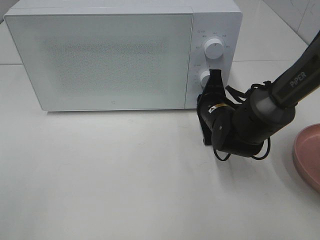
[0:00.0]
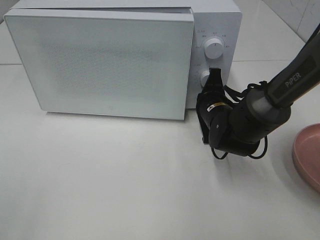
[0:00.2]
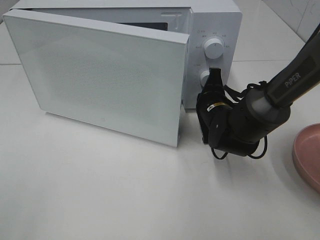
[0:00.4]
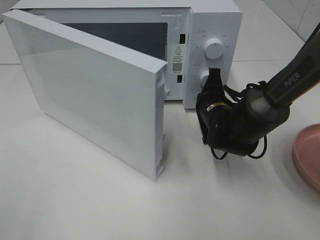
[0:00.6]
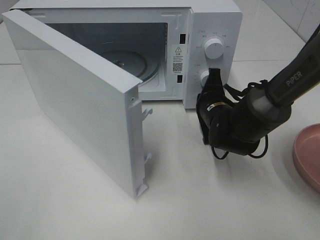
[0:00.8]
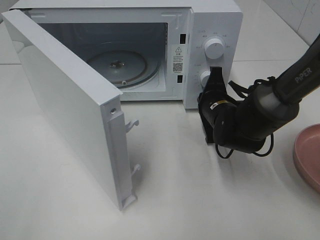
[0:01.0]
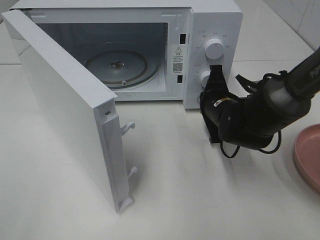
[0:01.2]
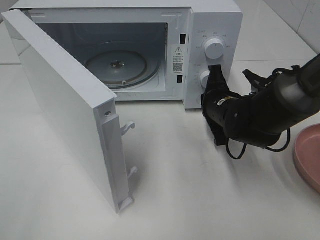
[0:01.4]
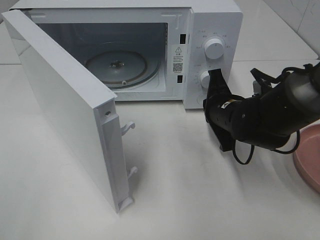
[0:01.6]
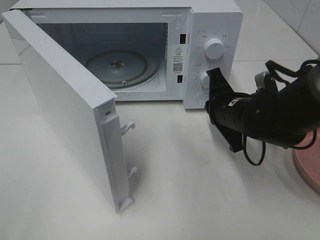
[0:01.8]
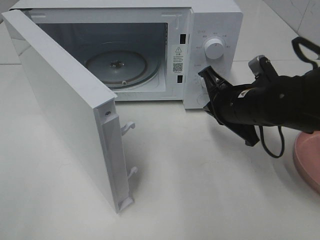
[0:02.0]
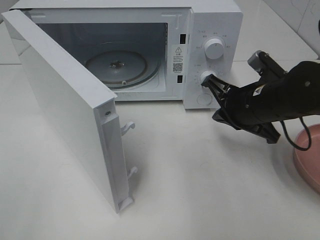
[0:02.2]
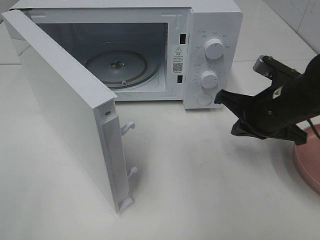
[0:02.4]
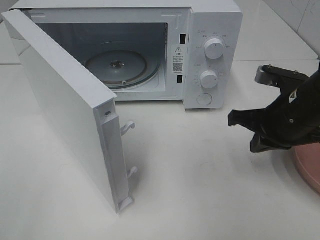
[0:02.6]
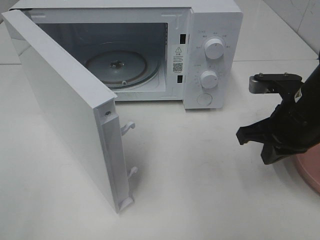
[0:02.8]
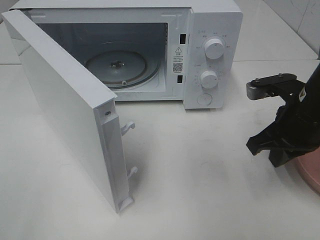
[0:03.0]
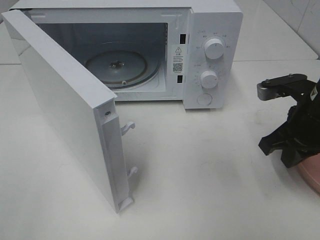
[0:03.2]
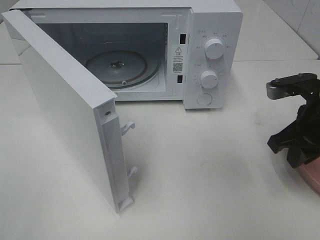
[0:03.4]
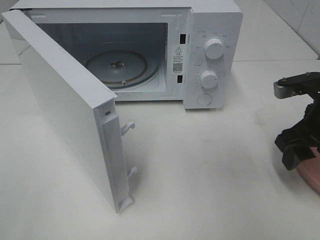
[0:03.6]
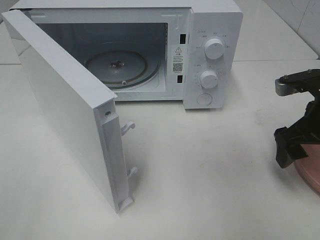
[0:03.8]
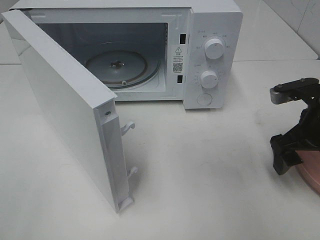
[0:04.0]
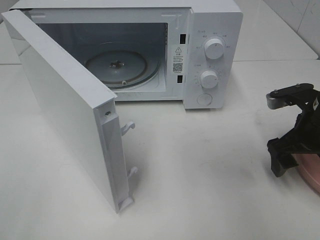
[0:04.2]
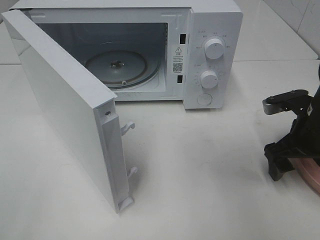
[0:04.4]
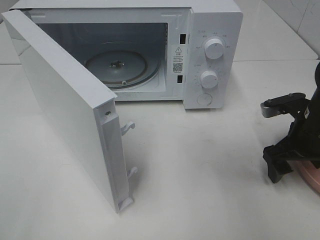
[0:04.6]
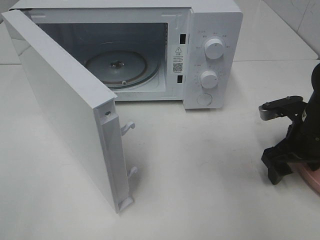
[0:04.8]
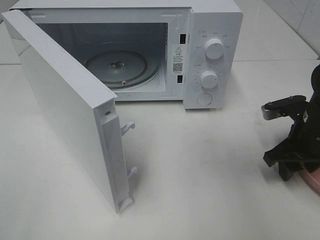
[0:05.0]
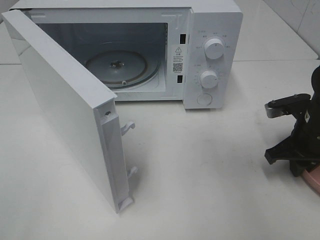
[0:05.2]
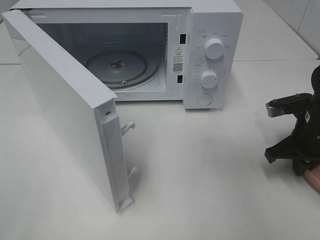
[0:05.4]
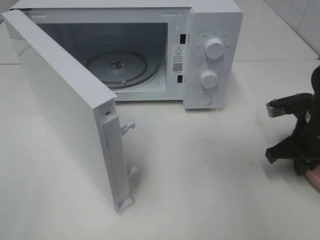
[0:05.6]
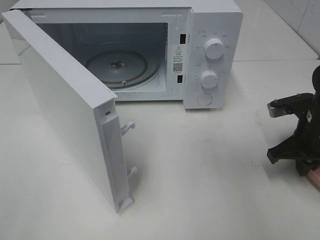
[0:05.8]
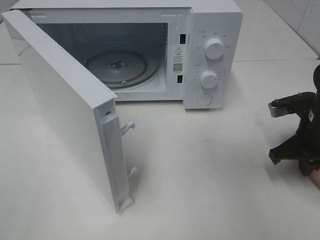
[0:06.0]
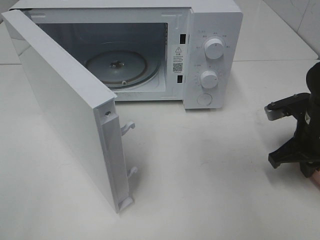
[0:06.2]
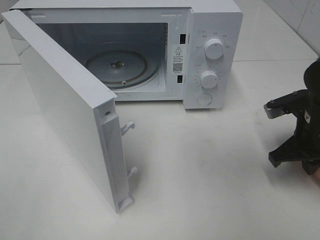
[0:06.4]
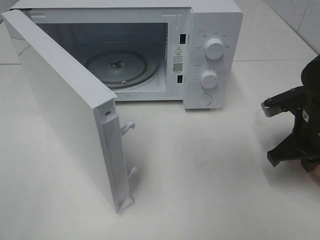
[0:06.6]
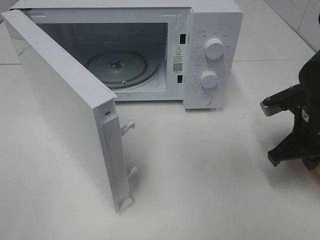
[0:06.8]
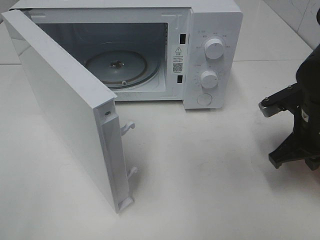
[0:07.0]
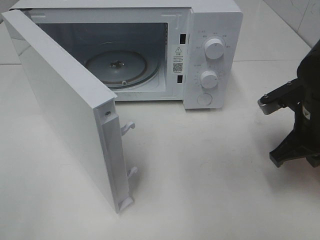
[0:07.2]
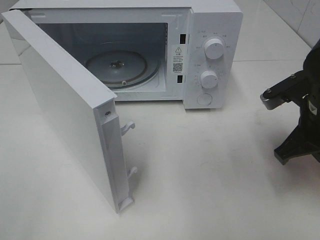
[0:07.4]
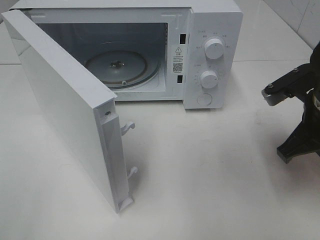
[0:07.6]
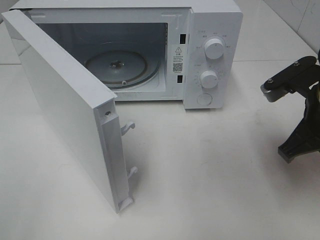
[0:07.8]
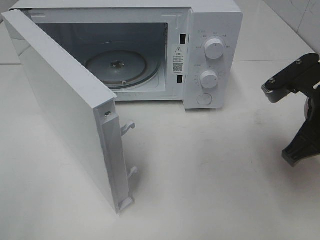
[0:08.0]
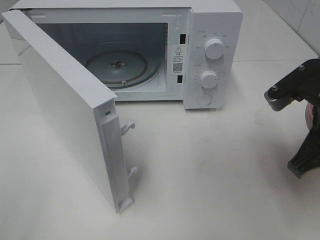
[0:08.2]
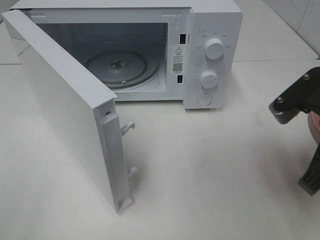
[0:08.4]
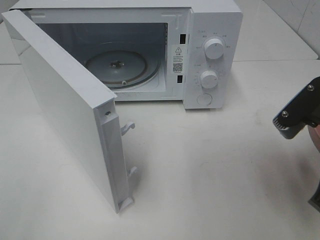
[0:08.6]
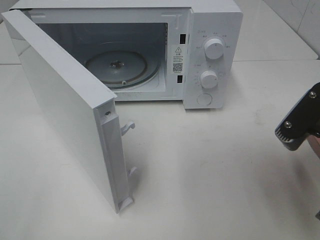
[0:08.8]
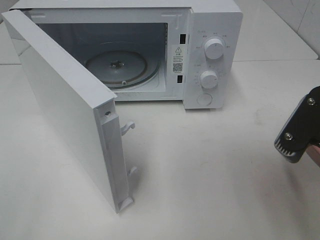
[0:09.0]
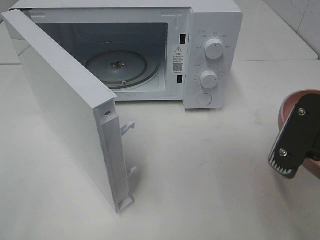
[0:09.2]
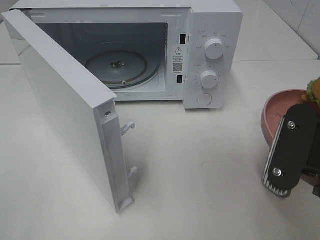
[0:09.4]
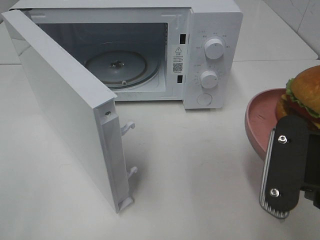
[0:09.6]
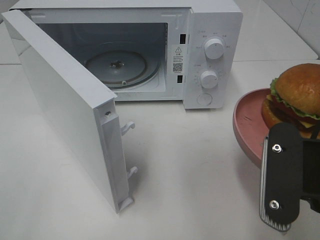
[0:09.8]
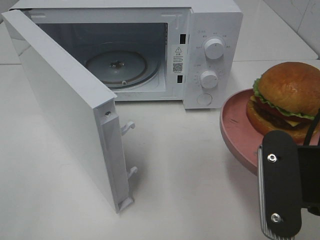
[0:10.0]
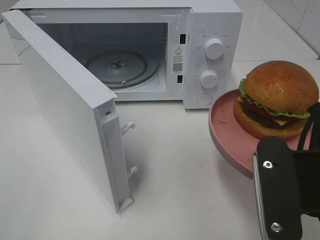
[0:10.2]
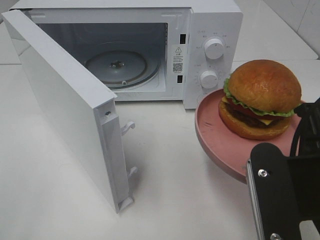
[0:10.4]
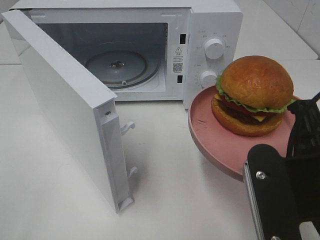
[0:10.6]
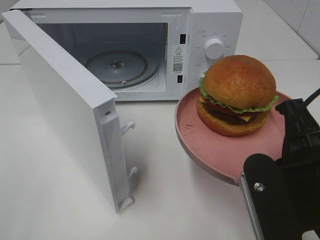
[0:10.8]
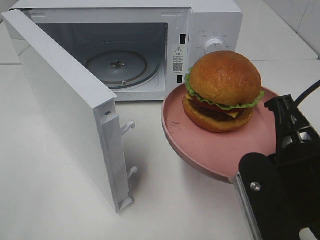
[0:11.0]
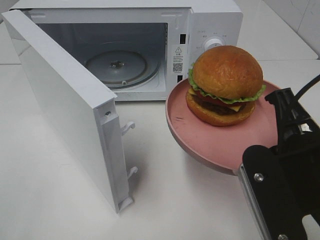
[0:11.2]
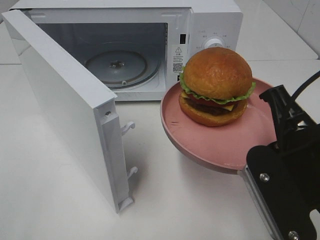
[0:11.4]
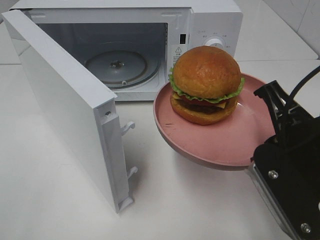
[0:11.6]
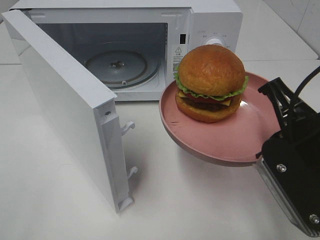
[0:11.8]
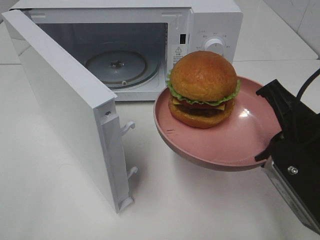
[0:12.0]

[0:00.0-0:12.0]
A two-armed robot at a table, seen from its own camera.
Task of the whole recording: Heat the burger.
Step, 0:01.8 to 0:06.2: Right hand: grab the plate with the hamburger.
0:01.6 to 0:03.0: The right gripper shifts about 10 cm upward, to the right and backward.
0:03.0 to 0:04.4: The right gripper changes place by approximately 5 cm, and opens its fingers.
0:04.4 to 0:06.0: The right gripper closes up.
0:06.0 to 0:07.6: The right gripper heads upward, covering some 5 cm.
0:07.6 to 0:09.0: The right gripper is displaced backward by about 10 cm.
0:09.0 to 0:10.4: The right gripper changes place by some 5 cm.
0:10.4 to 0:12.0: The right gripper shifts roughly 5 cm forward.

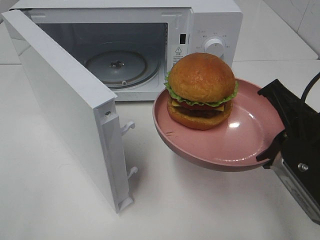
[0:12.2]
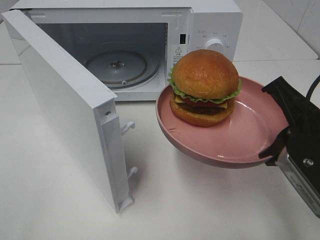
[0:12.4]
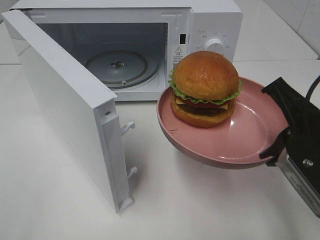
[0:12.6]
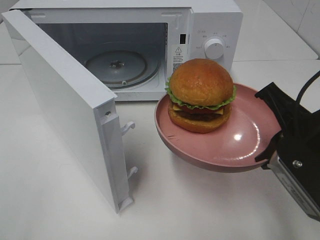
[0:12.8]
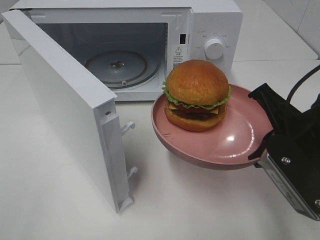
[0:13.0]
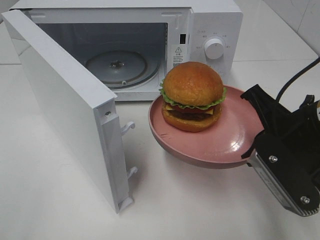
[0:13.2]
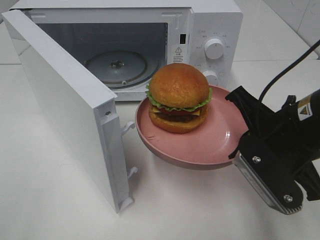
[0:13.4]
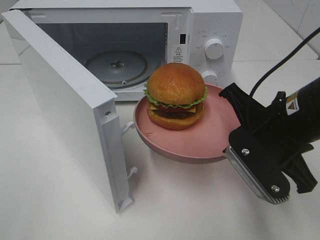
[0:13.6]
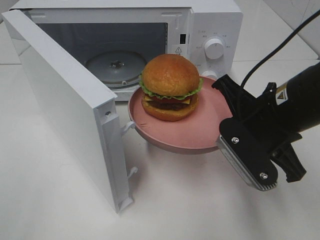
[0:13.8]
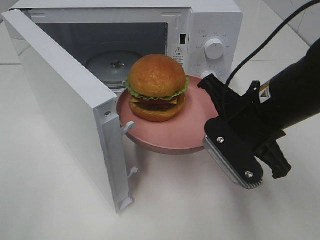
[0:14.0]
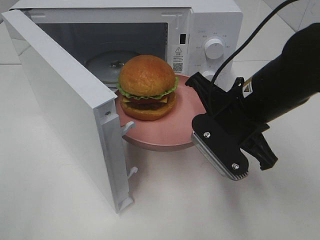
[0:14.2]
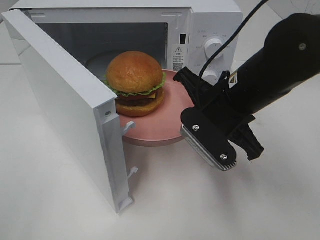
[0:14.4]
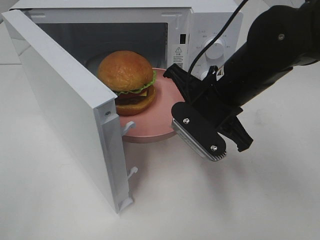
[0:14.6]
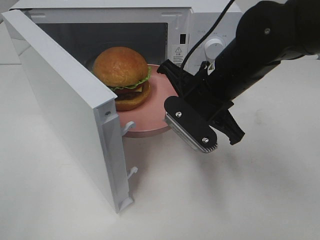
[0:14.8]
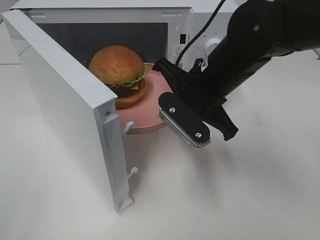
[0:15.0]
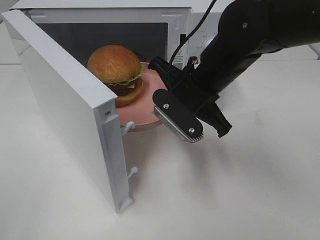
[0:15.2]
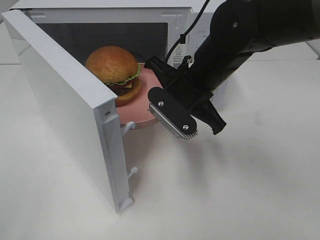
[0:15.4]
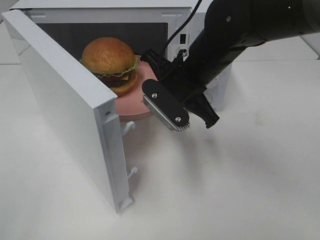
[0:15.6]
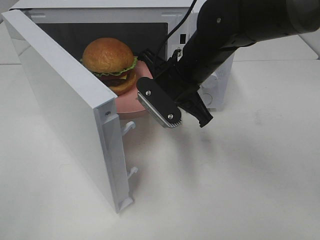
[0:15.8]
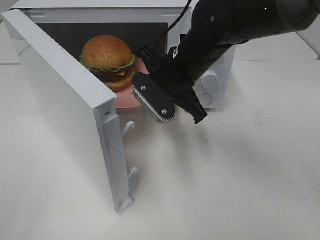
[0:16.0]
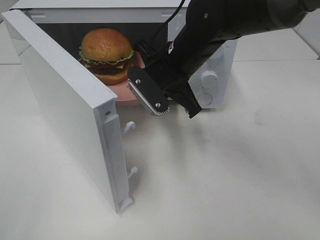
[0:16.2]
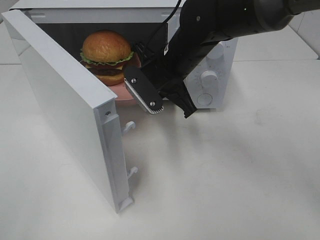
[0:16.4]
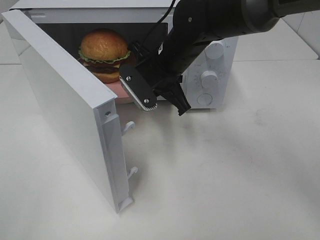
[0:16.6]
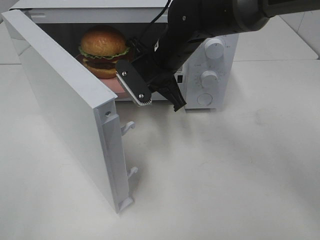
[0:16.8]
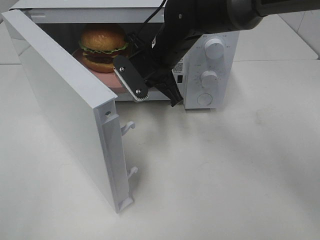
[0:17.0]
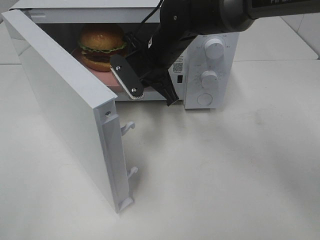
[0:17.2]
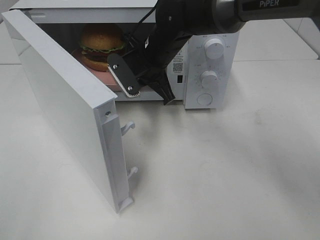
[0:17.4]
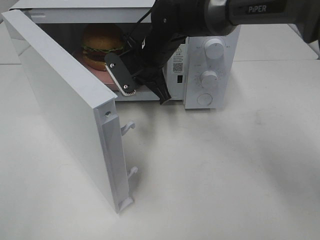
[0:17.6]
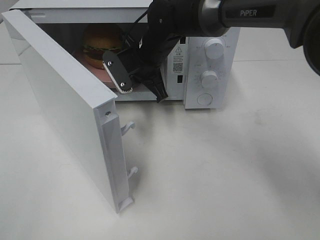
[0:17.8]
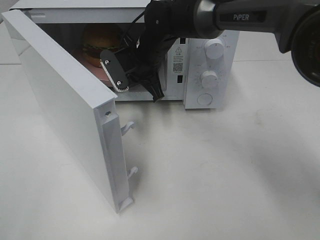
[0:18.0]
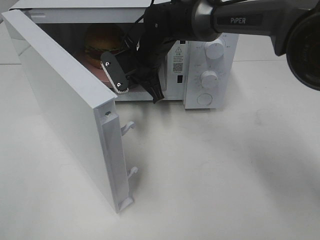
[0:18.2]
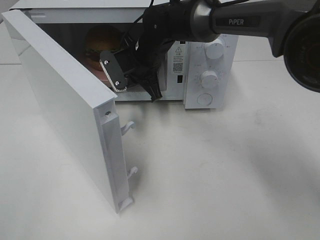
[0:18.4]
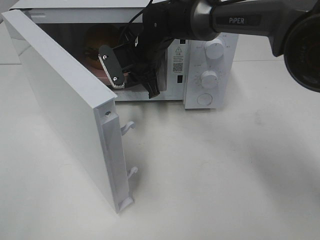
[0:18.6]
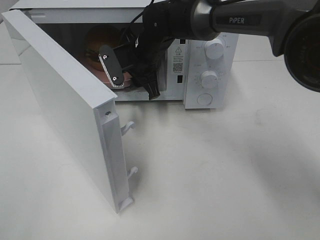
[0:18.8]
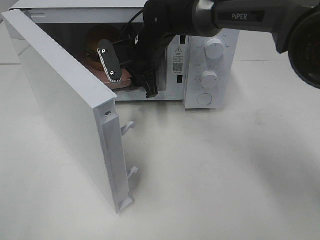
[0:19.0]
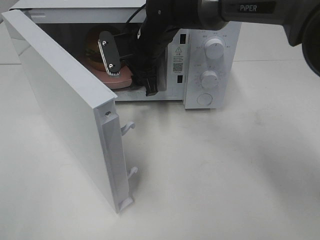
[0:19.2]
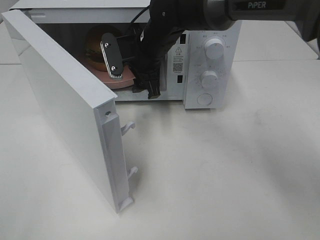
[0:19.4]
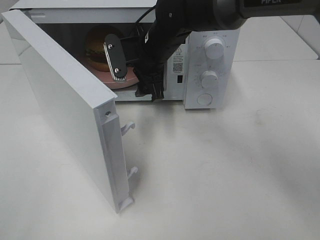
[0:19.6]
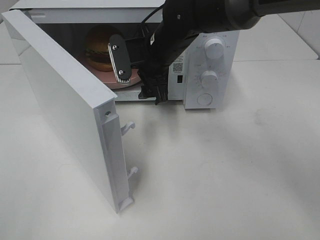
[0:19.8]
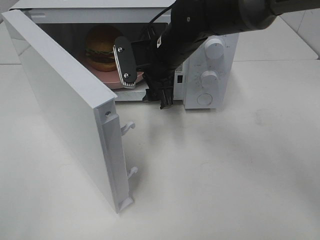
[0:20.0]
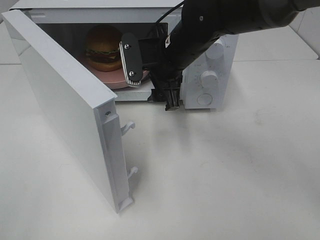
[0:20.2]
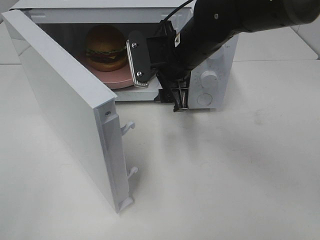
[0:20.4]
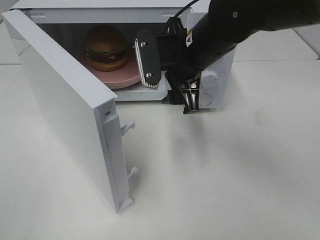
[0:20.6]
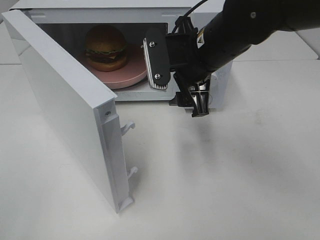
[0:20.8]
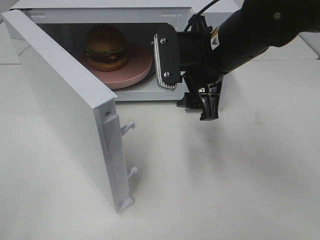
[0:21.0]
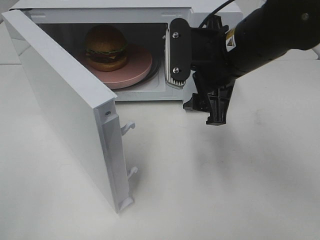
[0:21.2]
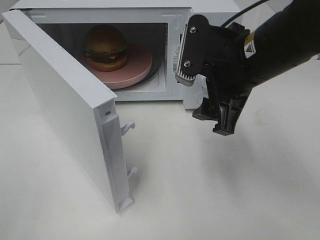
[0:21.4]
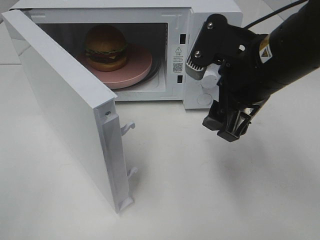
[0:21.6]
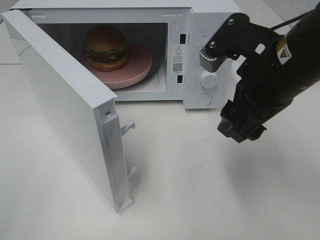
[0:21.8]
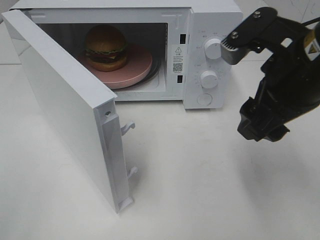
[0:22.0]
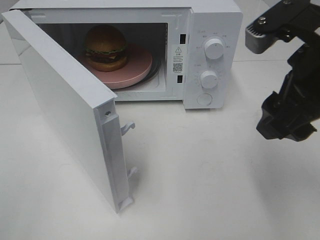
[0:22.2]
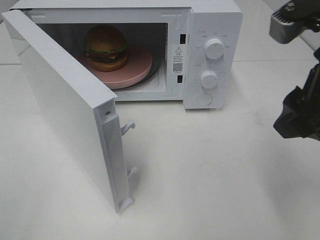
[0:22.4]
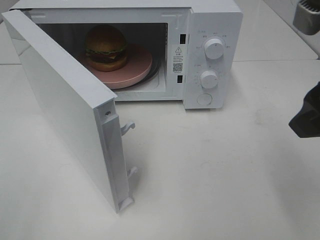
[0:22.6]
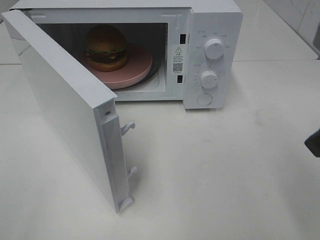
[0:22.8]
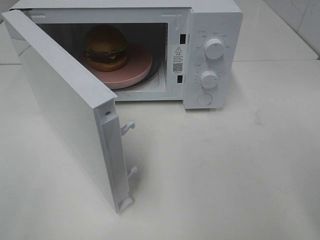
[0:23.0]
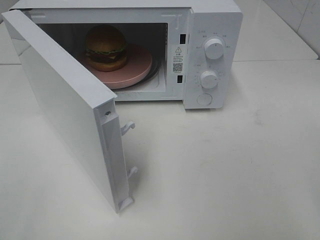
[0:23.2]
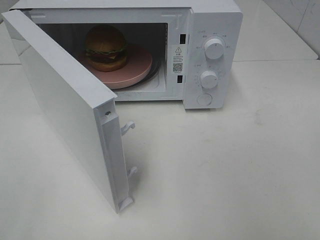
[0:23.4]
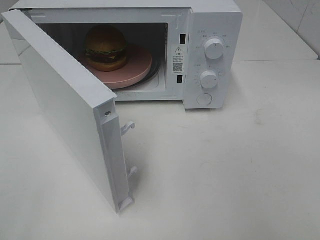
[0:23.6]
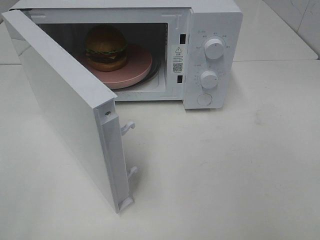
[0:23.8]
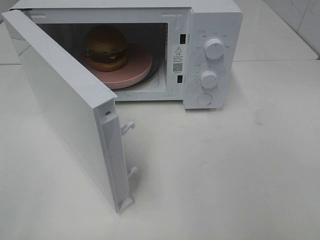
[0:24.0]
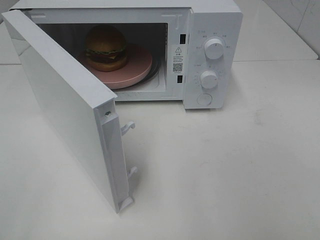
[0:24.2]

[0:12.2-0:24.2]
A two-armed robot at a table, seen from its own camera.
Task of the whole recording: Heat the burger.
Step, 0:12.2 to 0:19.0: Right hand: place the plate in the microwave.
0:12.2 to 0:13.8: The right gripper shifts about 5 cm forward.
0:13.8 to 0:15.2: The right gripper shifts about 10 cm forward and to the left.
0:15.2 to 0:16.6: The right gripper moves forward, about 5 cm.
0:16.6 to 0:18.2: The right gripper goes roughly 5 cm forward.
0:18.2 to 0:19.8: The right gripper shifts by approximately 5 cm, and opens.
0:19.8 to 0:21.2: The right gripper heads backward, to the right and upward, covering about 15 cm.
0:21.2 to 0:22.6: The right gripper moves backward, to the right and upward, about 15 cm.
0:22.6 to 0:24.2: The right gripper heads backward and to the right, covering roughly 20 cm.
